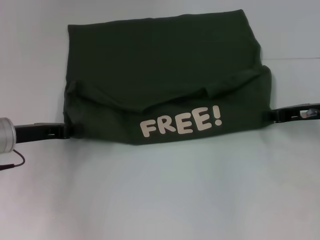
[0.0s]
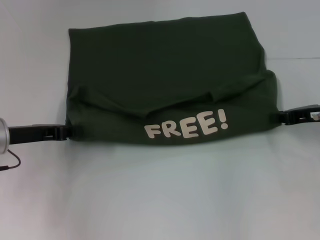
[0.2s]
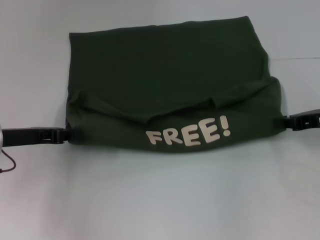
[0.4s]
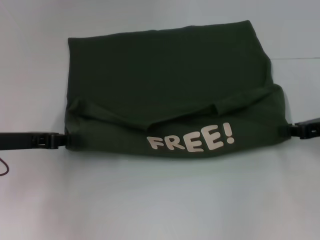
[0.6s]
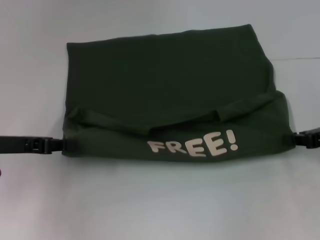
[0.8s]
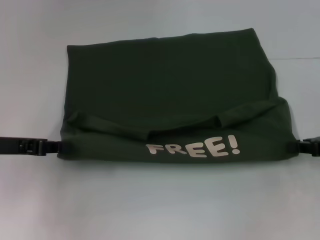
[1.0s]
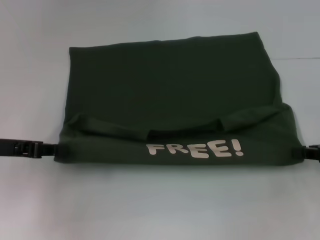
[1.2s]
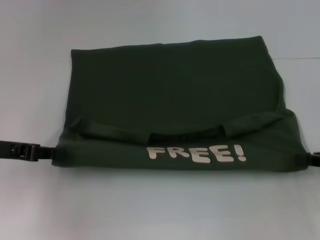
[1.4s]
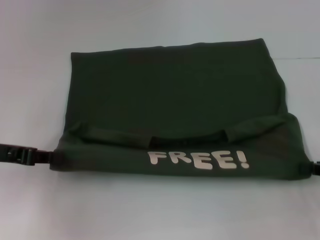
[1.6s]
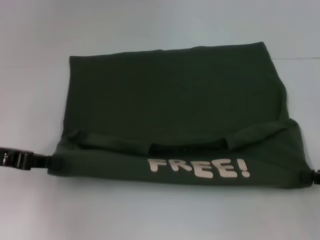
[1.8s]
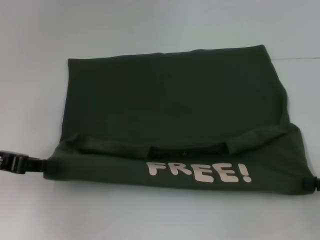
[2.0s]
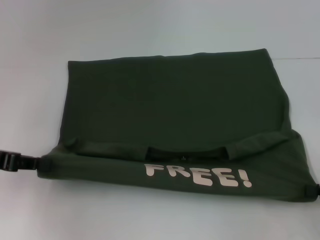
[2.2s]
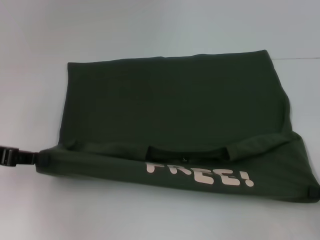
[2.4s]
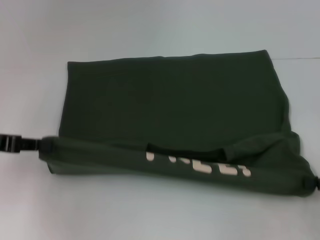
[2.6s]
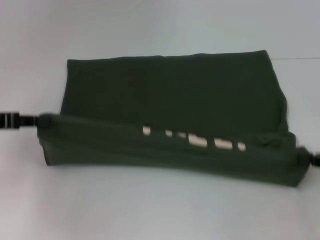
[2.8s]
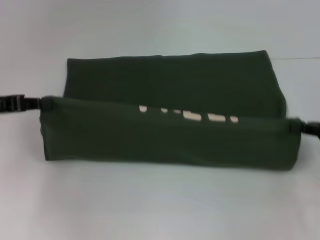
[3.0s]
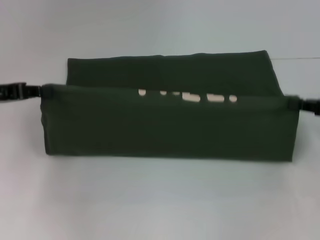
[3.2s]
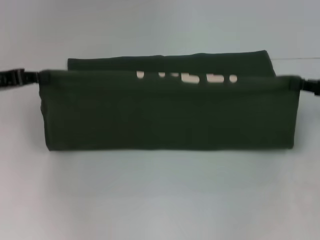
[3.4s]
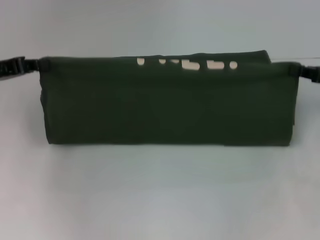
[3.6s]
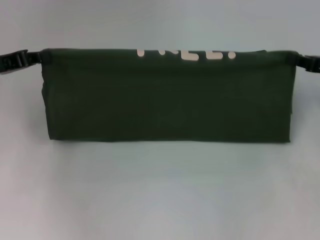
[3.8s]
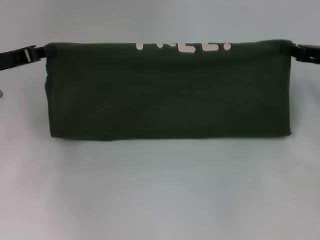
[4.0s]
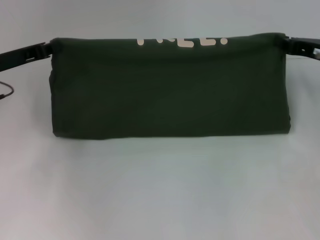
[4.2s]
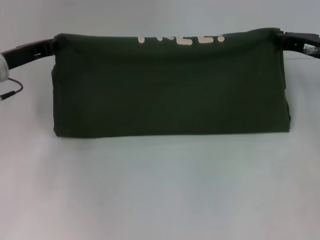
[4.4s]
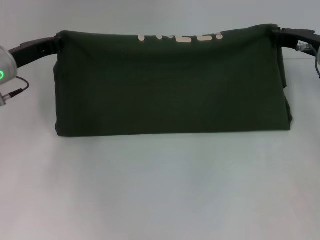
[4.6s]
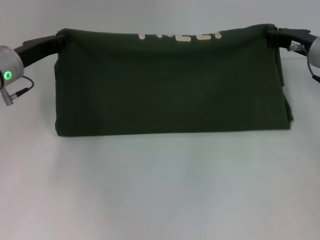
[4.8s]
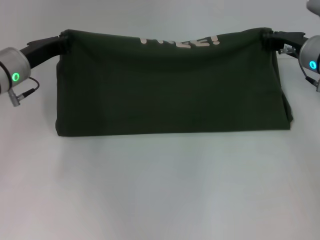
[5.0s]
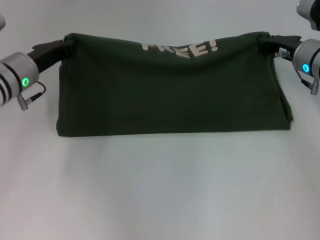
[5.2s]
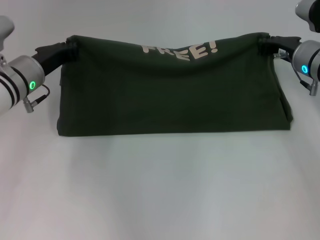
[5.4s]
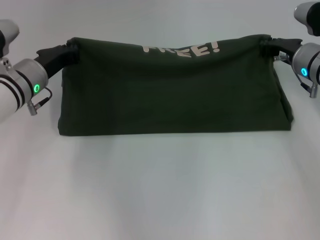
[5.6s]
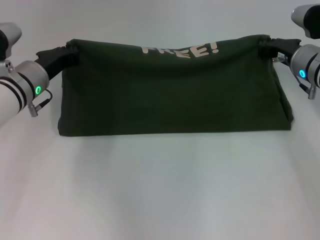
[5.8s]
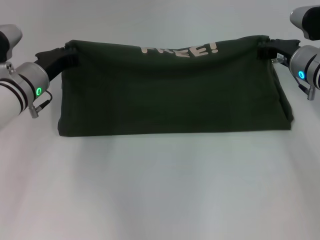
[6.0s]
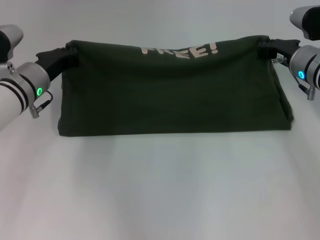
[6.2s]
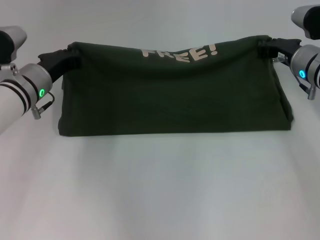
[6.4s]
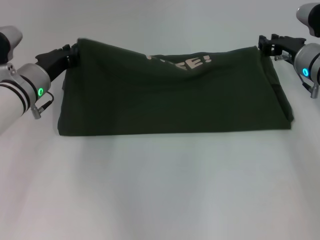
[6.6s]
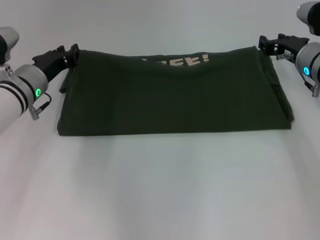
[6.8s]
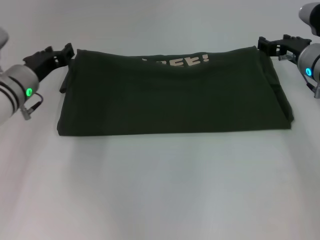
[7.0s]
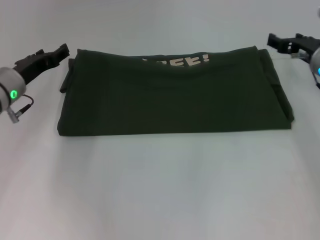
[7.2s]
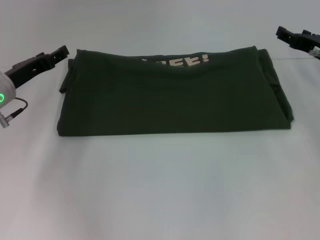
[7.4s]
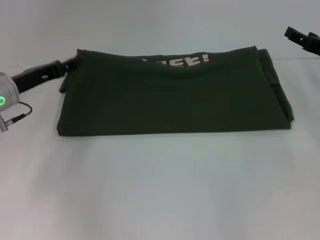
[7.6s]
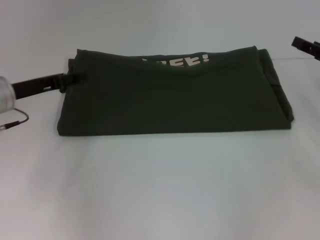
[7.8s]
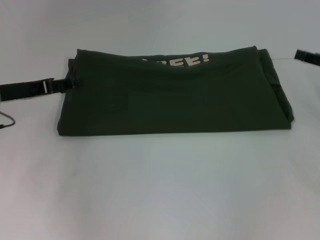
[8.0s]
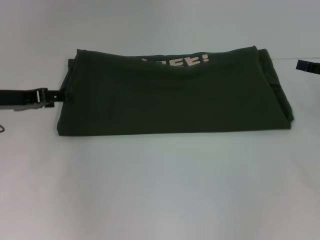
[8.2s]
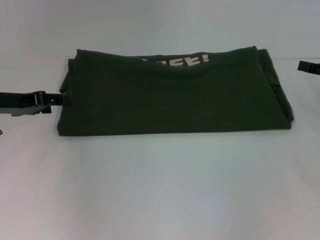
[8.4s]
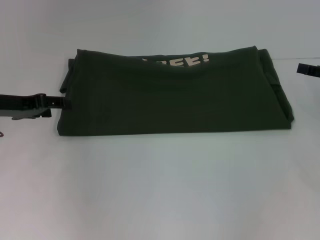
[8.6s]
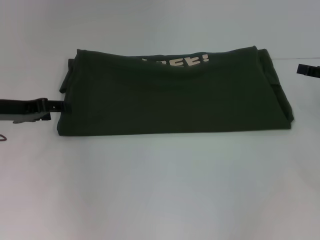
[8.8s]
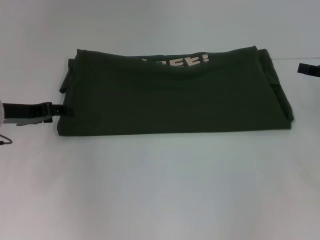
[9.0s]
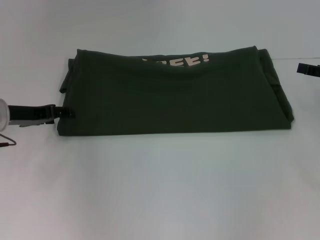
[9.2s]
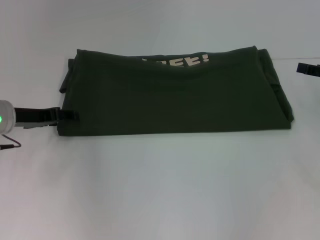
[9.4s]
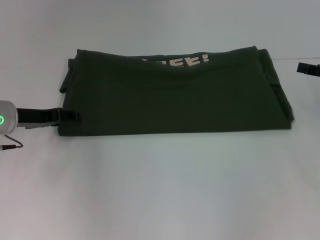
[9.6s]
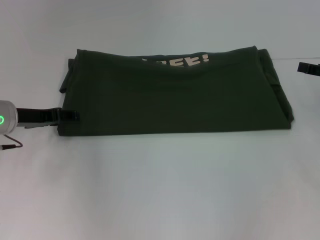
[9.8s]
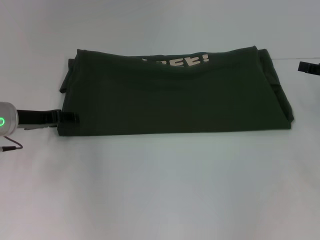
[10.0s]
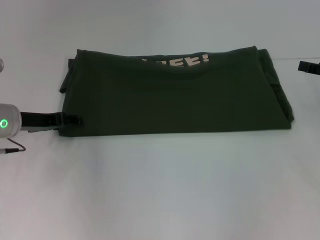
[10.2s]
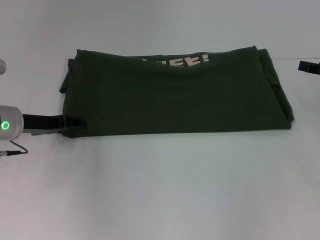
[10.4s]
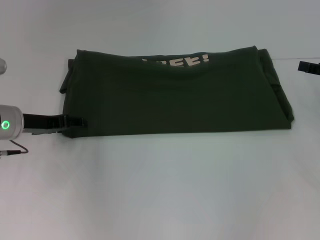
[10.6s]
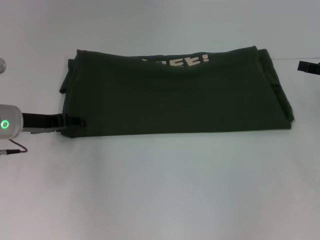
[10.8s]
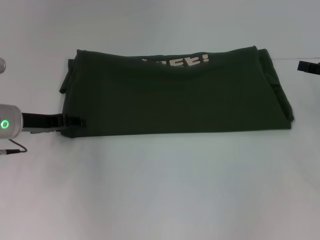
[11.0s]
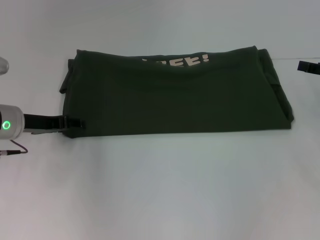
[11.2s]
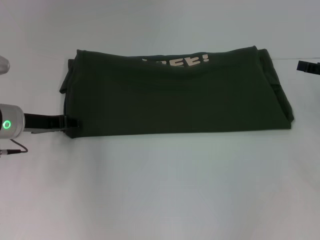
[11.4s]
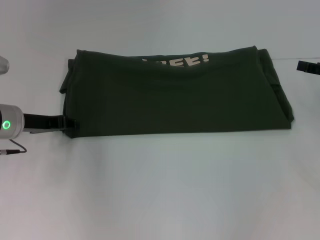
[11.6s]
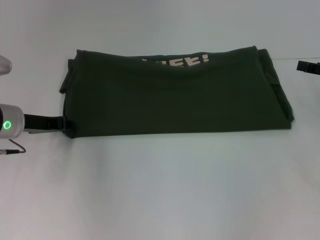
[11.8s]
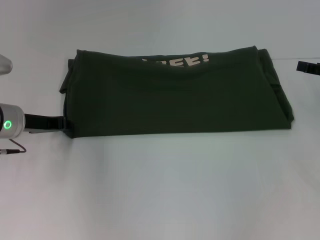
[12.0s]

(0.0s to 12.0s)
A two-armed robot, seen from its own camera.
Step, 0.0s - 2.0s: Pull the clothes with your left hand.
Step, 0.0s - 2.0s: Pull the clothes with your right hand.
Step, 2.2s - 7.2s: Fold the clothes with your right hand.
0.0s - 1.6s: The right gripper heads backward and to the right, covering about 15 cm. The left gripper travels upward by about 5 cm.
3.0s - 4.4s: The left gripper heads forward and to the right, covering about 10 cm; the right gripper moves forward and to the left, roughly 15 cm.
4.4s - 6.0s: The right gripper changes place by roughly 5 cm. The left gripper is displaced to the right by some 5 cm.
6.0s - 7.6s: The left gripper moves to the left, about 5 cm, and opens up. Meanwhile the right gripper shifts roughly 10 cm to the right, and opens.
7.6s - 9.0s: The right gripper ends up some 5 cm from where it was.
9.0s - 10.4s: There are only small adjustments of the grippers.
10.4s - 12.0s: The left gripper closes.

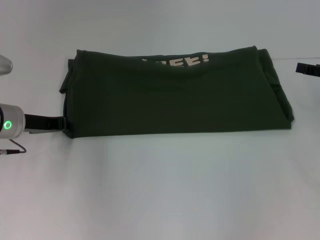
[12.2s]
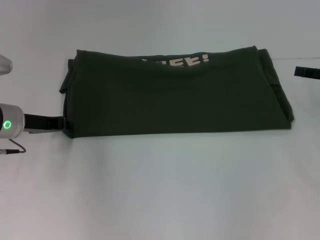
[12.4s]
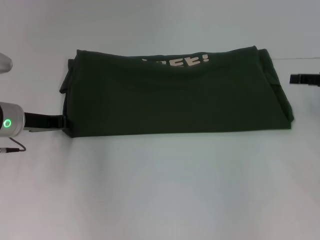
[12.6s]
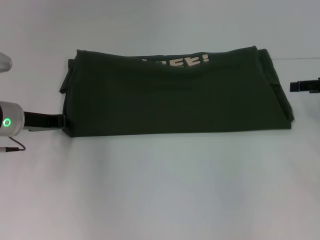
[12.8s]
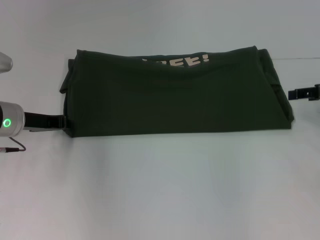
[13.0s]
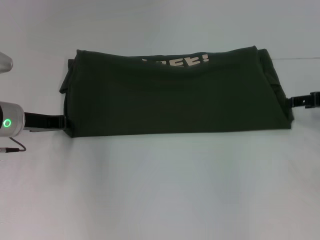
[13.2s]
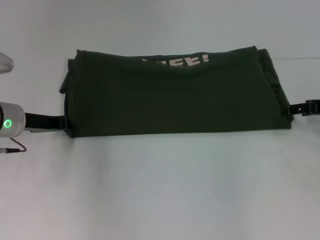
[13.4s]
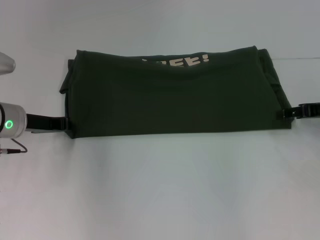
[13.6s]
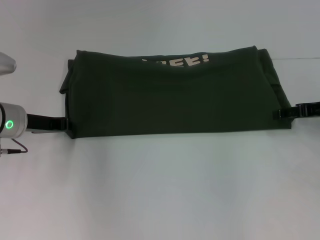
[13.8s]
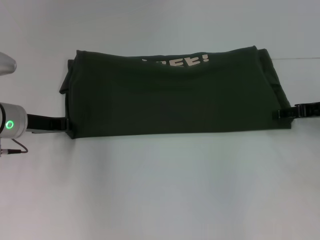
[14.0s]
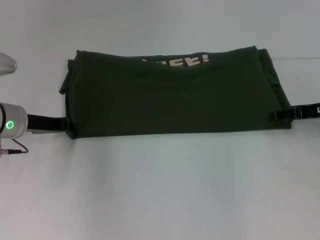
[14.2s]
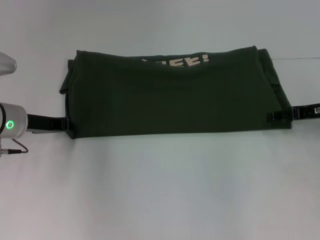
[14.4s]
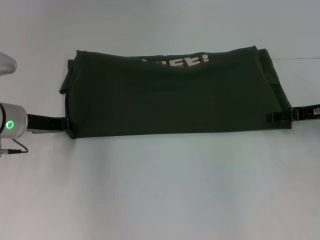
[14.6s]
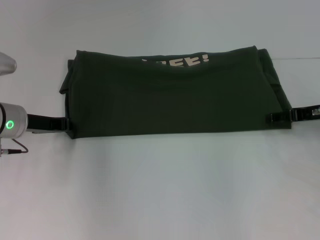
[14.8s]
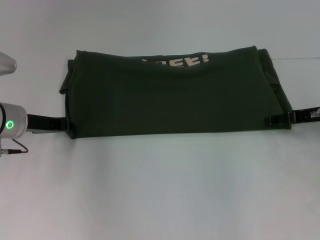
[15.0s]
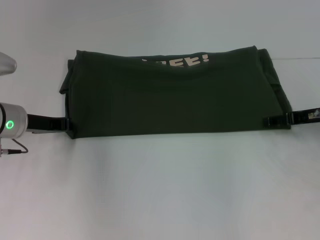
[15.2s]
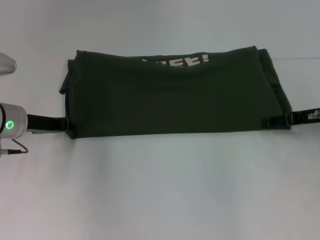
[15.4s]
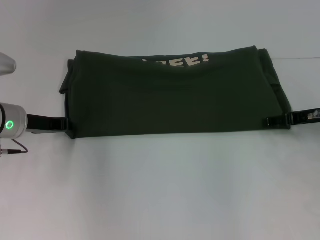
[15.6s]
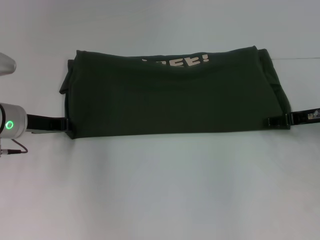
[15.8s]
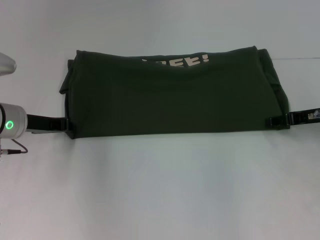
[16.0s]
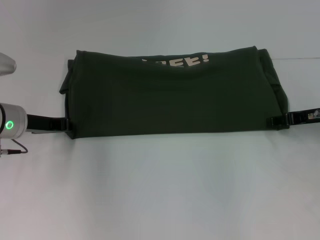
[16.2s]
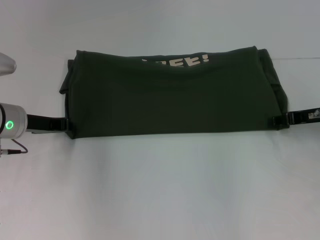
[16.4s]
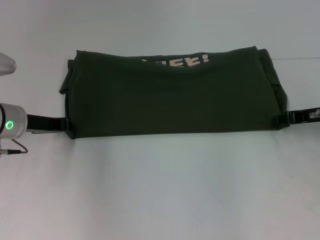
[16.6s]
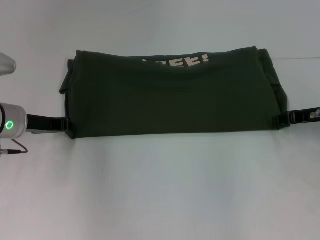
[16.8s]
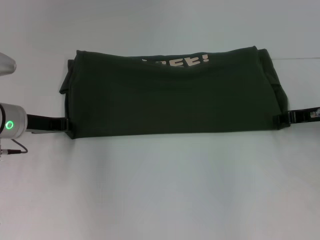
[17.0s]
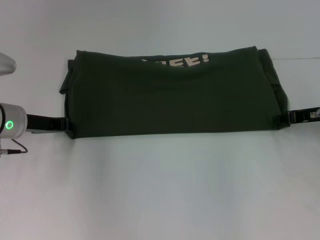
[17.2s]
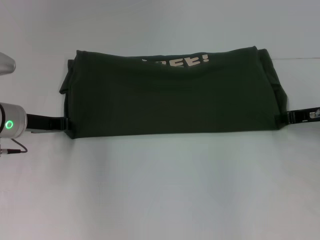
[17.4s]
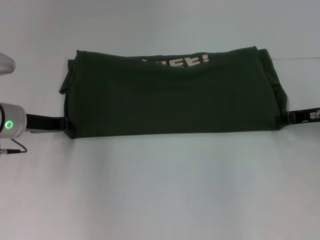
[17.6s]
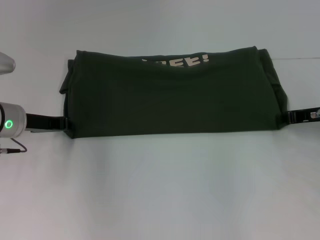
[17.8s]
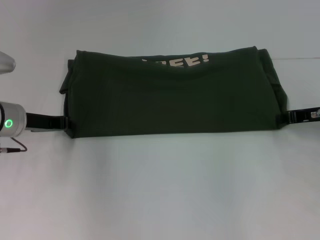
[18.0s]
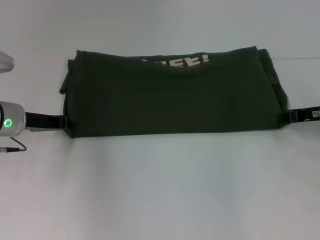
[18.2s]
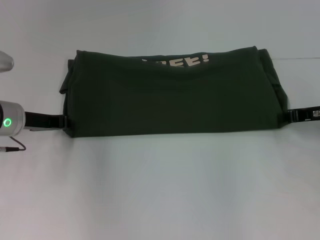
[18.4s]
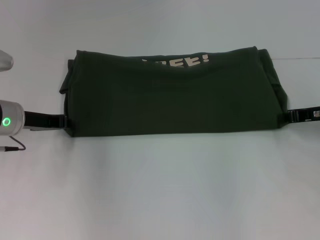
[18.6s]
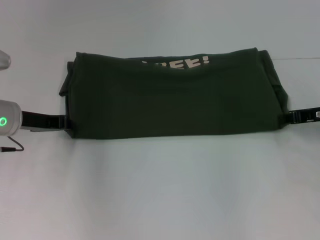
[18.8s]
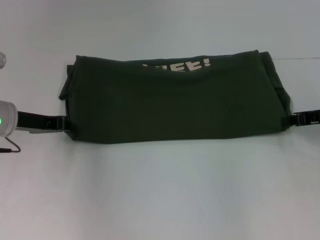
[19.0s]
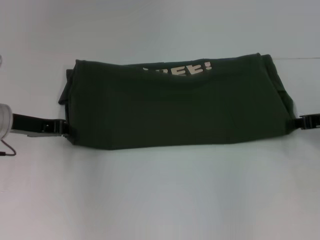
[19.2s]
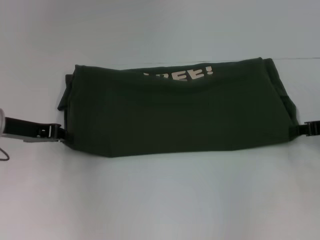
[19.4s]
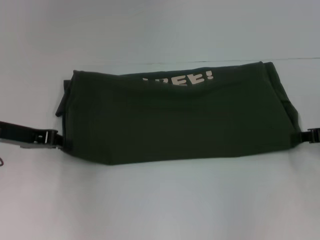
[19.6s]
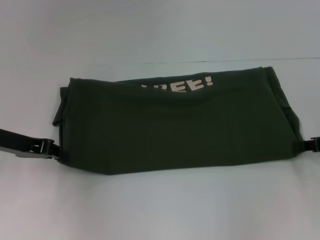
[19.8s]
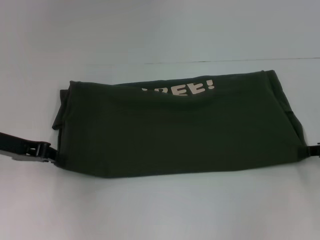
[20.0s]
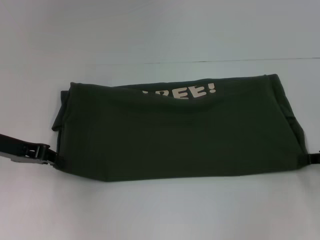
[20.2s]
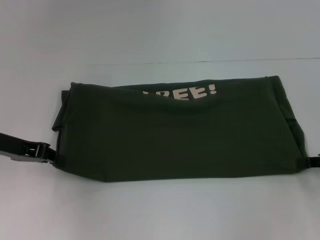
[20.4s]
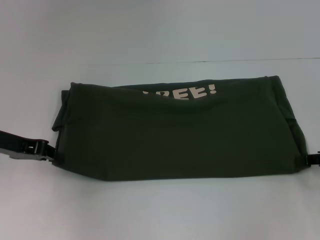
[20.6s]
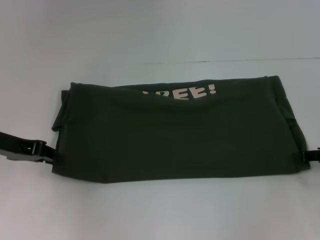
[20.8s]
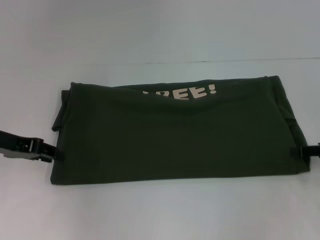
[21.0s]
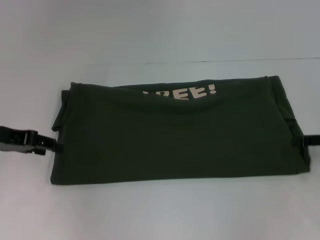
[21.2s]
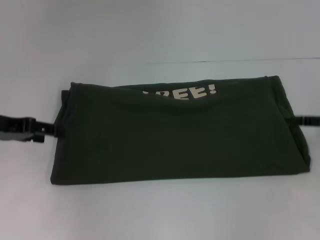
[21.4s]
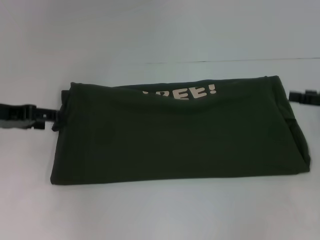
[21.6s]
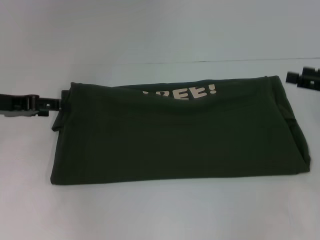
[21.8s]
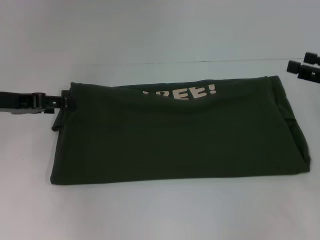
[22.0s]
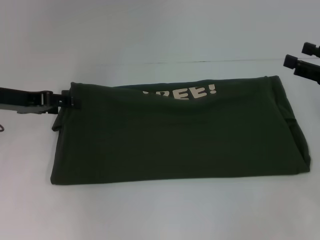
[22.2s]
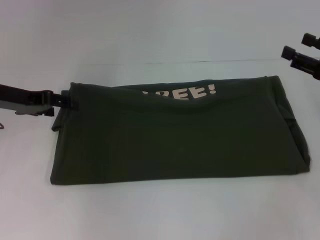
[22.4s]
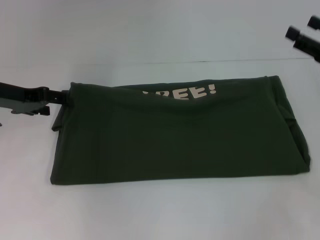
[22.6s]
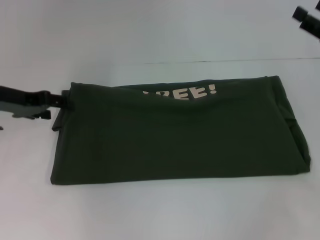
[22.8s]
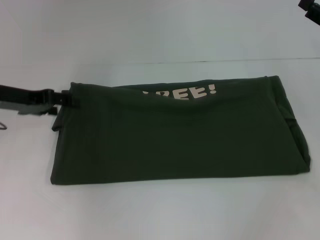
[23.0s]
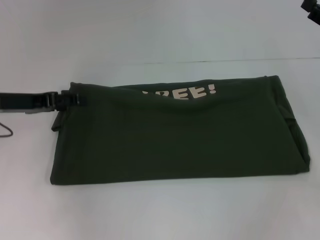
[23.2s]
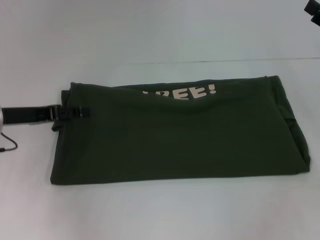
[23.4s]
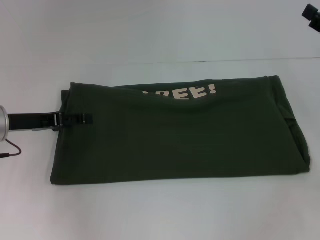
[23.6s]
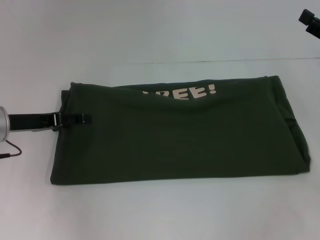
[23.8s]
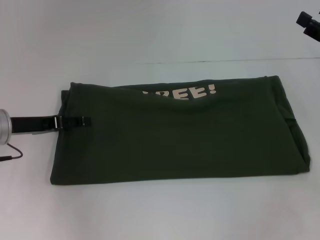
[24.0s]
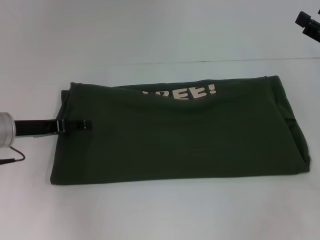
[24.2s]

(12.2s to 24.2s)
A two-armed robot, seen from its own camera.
18.2s - 19.8s: The right gripper shifts some 5 cm backward. The left gripper ends up approximately 5 cm from where it was.
19.8s - 21.2s: The right gripper opens up. Meanwhile the left gripper opens its fingers.
21.2s - 22.6s: The left gripper moves some 5 cm, and opens its fingers. Meanwhile the right gripper changes place by about 5 cm, and opens its fingers.
22.6s - 24.2s: The left gripper travels downward by approximately 5 cm.
